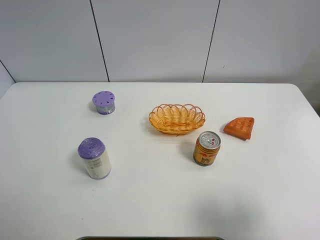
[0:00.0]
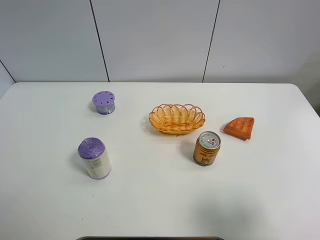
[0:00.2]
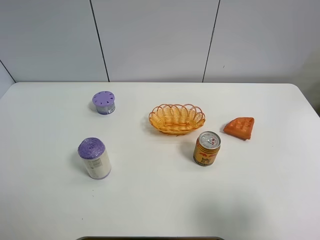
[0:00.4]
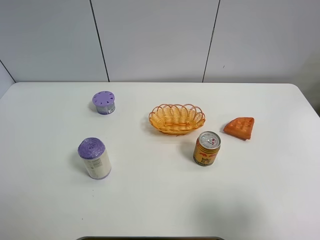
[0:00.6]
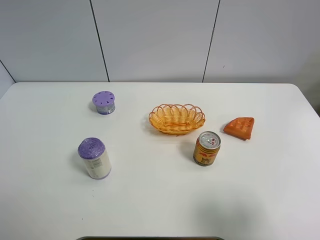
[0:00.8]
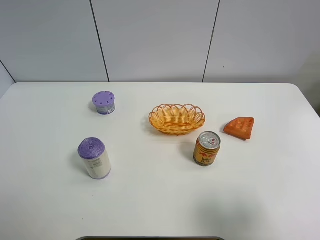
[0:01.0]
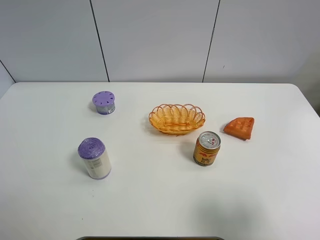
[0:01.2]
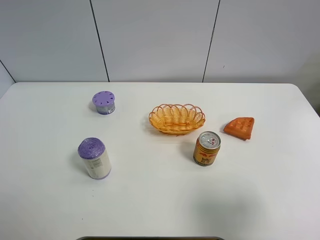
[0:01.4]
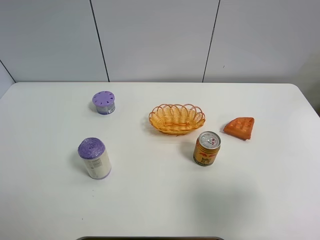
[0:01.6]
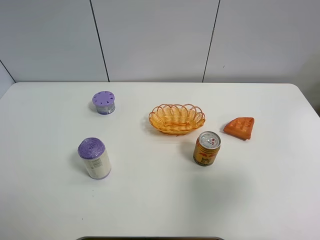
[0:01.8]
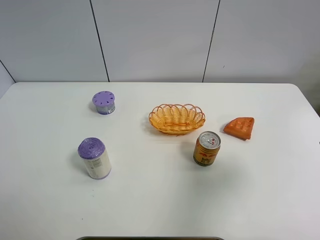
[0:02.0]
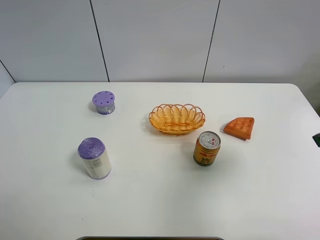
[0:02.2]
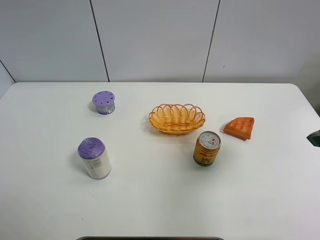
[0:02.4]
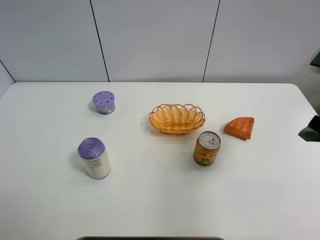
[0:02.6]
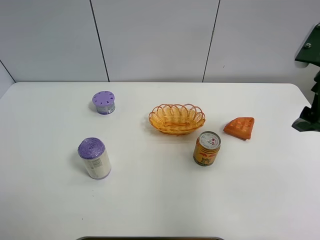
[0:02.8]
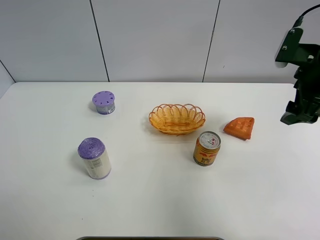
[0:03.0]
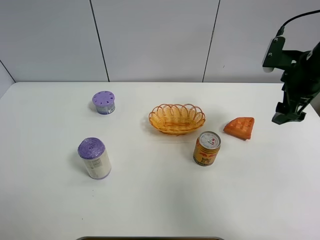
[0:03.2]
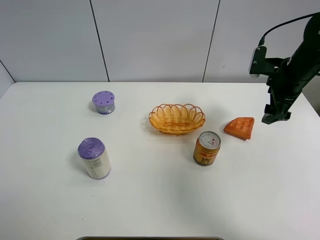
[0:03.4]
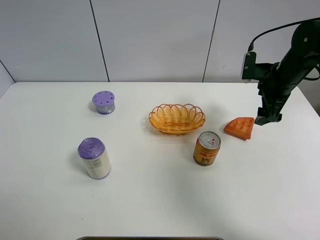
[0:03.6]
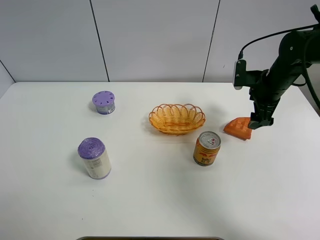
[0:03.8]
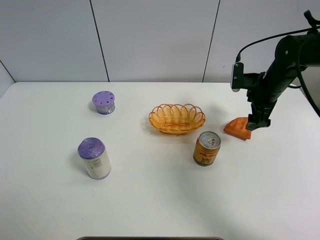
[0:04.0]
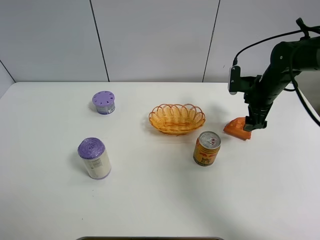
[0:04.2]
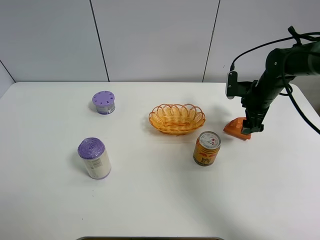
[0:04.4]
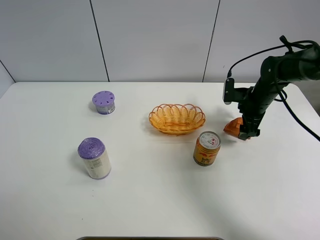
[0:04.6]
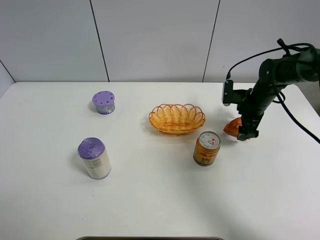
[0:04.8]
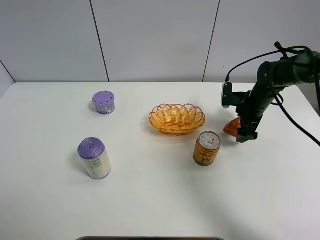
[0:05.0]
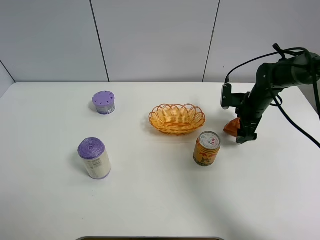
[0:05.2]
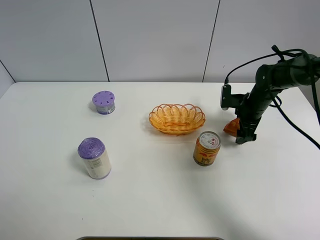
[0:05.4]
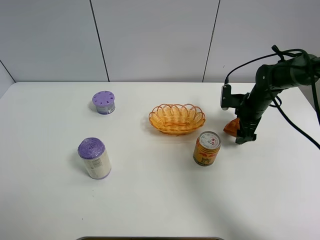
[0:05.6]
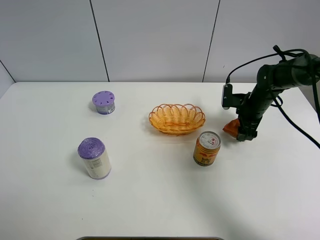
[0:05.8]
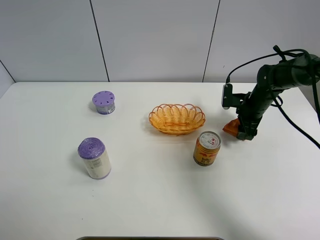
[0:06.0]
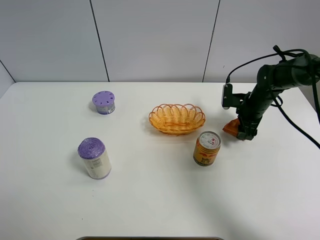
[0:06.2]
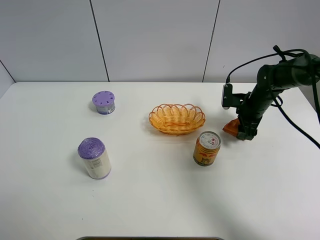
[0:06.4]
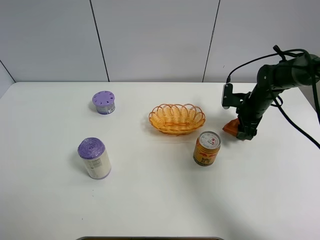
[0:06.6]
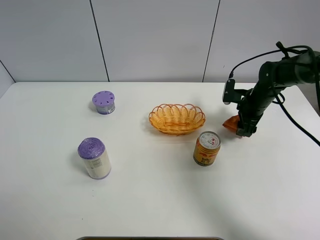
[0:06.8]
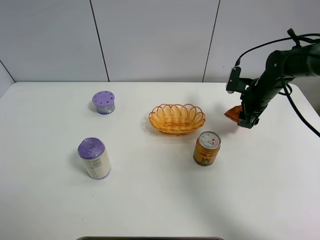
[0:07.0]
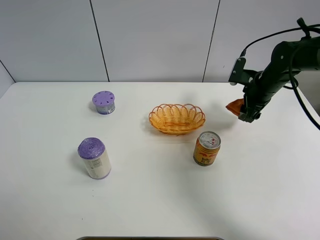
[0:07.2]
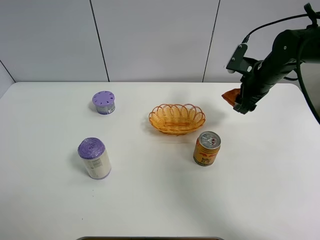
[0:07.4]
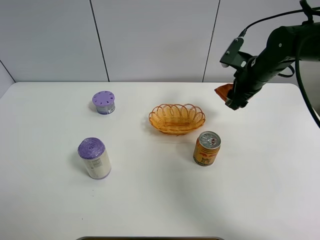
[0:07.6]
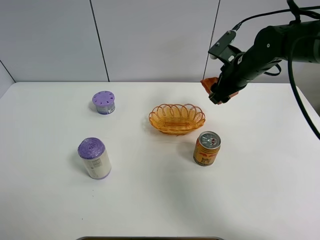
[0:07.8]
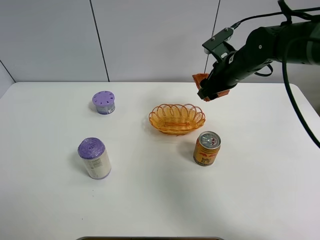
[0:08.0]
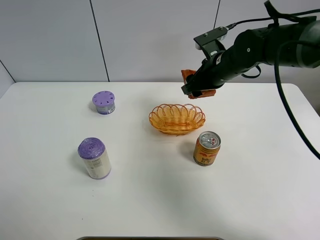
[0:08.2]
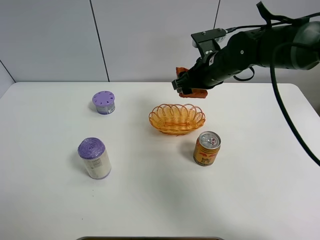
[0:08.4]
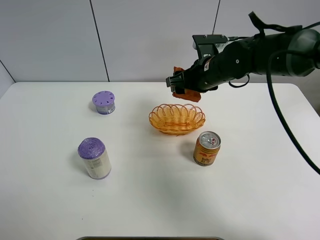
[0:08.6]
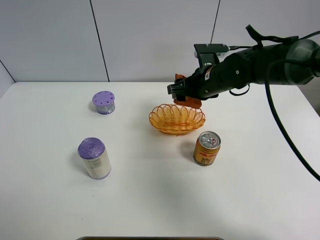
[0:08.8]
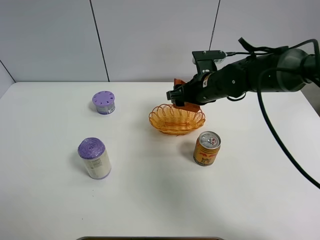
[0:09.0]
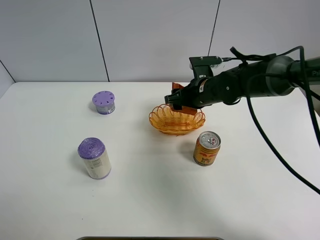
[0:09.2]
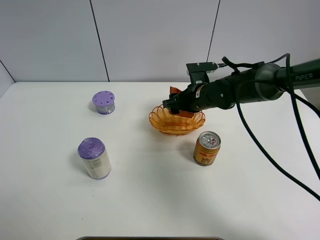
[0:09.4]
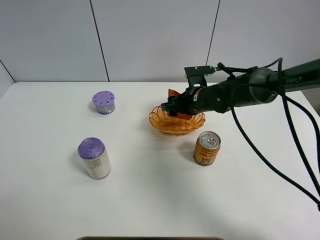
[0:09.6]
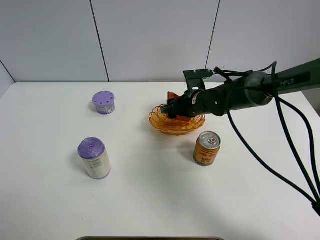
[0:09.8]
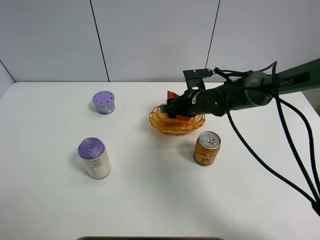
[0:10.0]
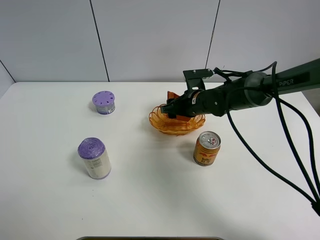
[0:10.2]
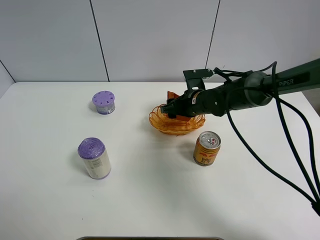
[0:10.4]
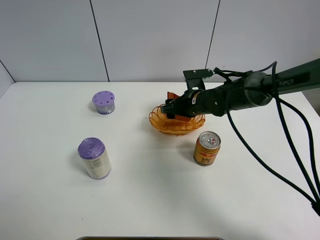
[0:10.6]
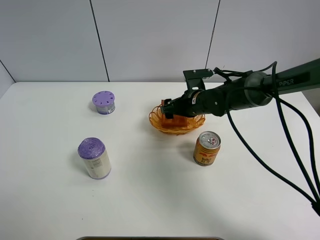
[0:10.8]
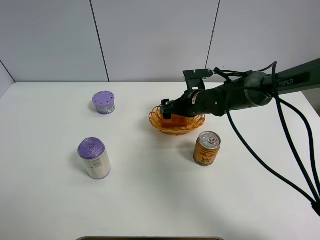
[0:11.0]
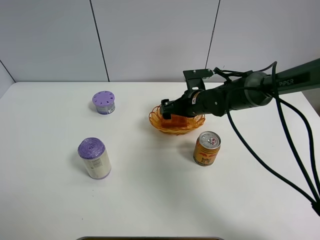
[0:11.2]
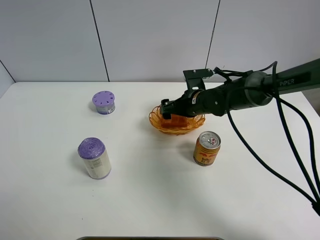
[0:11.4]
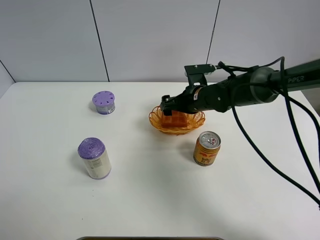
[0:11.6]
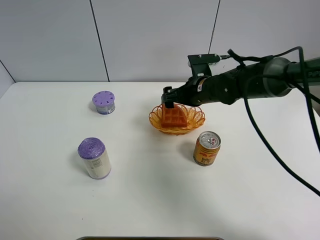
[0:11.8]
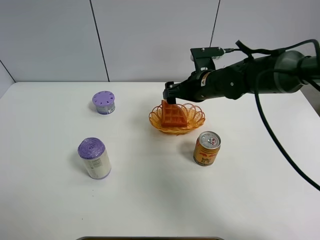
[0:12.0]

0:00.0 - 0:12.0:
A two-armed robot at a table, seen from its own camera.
Task of the whole recording: Put the bakery in the basket.
Step, 0:00.0 - 0:05.8: Grasp the bread with right gripper.
0:00.0 - 0:01.6: The grippers stay close to where they were, moving slightly.
0:01.6 - 0:03.0: The right gripper heads forward, covering some 25 cm.
0:03.0 - 0:04.4: The right gripper heads downward and forward, covering roughly 15 cm.
0:04.4 - 0:06.0: The right gripper closes up.
0:06.0 - 0:07.6: The right gripper is displaced upward by some 10 cm.
0:07.6 - 0:09.0: The right gripper goes about 10 cm to the left.
0:09.0 - 0:10.4: The right gripper goes about 5 cm downward.
0:10.4 - 0:12.0: The right gripper travels upward by about 5 cm, and opens.

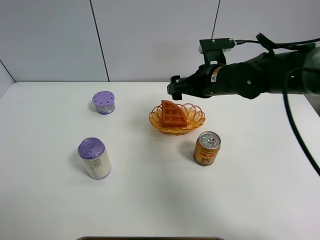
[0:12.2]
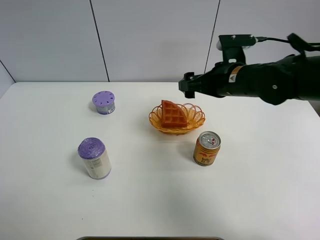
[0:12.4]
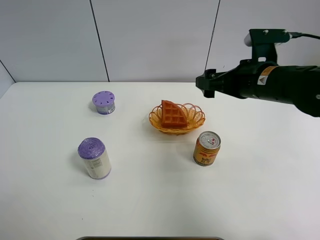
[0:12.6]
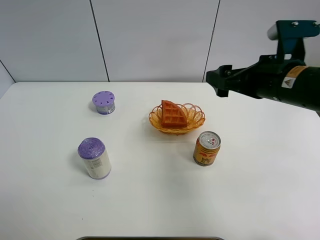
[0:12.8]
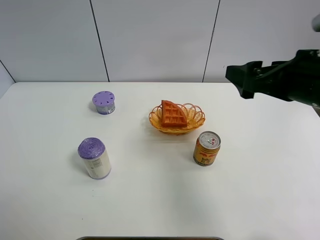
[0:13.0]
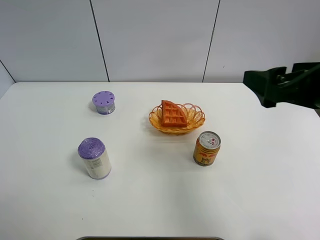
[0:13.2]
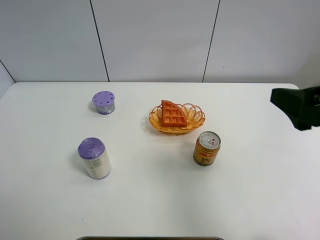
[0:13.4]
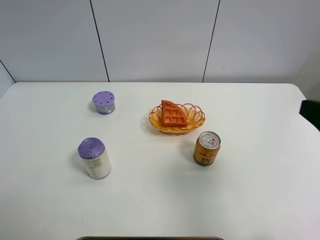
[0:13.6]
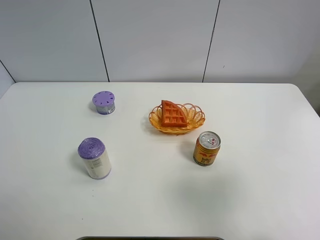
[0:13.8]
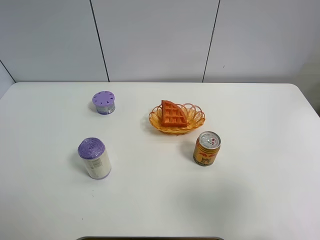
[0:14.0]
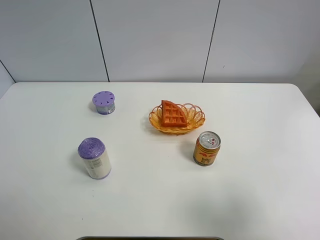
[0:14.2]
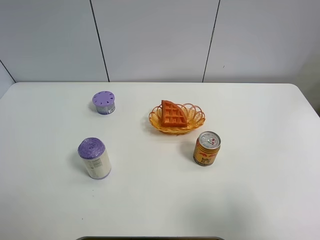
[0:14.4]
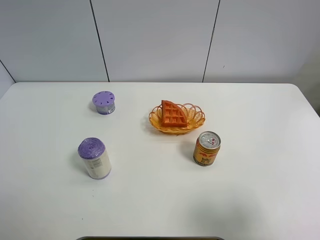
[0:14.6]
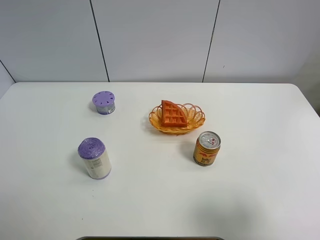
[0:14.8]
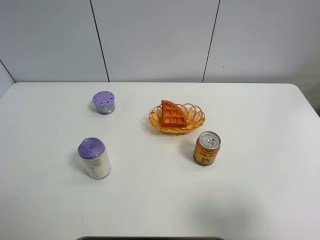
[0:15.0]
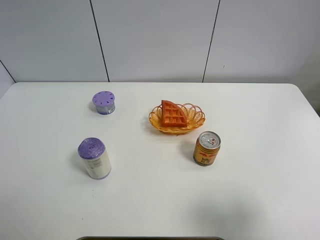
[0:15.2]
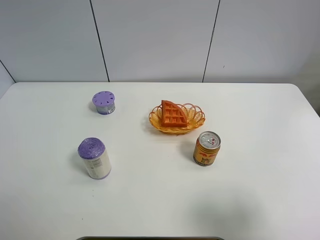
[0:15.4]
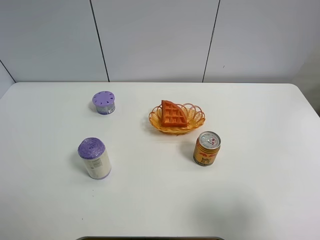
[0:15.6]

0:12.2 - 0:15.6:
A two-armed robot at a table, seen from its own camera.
Task of the whole recording: Put the bakery in the basket.
0:12.2 - 0:13.8: The right gripper goes about 35 cm backward and to the right.
0:13.8 - 0:15.6: The right gripper moves approximately 5 cm.

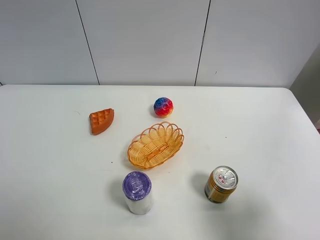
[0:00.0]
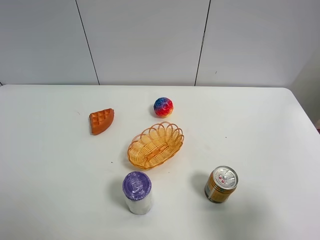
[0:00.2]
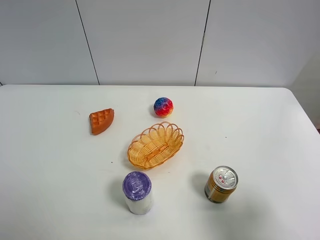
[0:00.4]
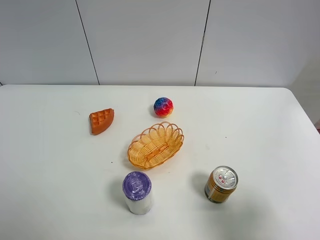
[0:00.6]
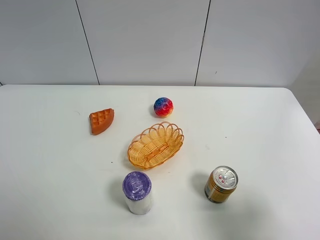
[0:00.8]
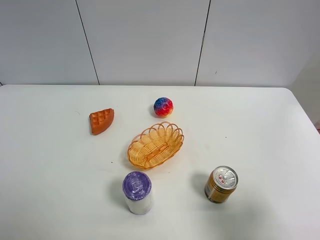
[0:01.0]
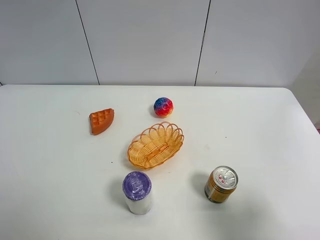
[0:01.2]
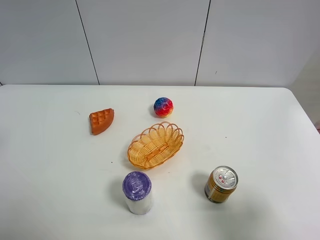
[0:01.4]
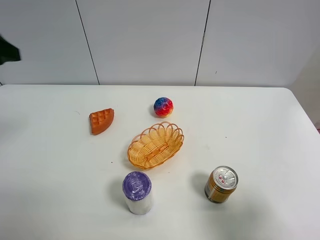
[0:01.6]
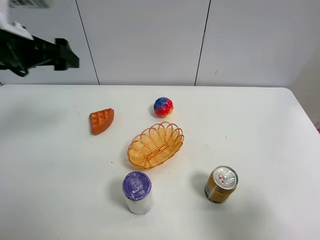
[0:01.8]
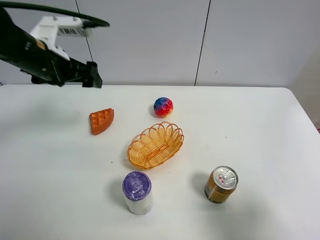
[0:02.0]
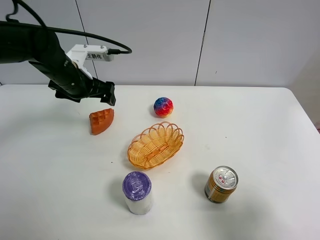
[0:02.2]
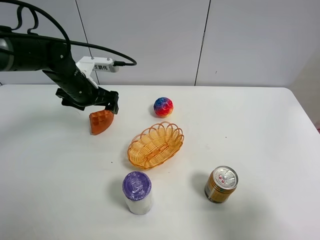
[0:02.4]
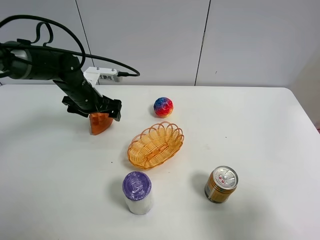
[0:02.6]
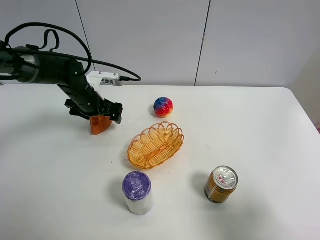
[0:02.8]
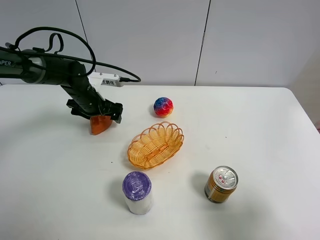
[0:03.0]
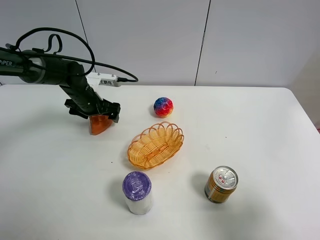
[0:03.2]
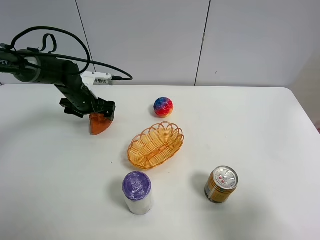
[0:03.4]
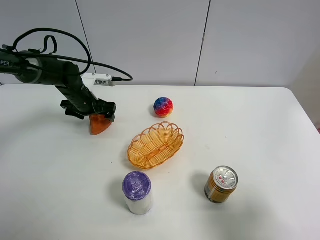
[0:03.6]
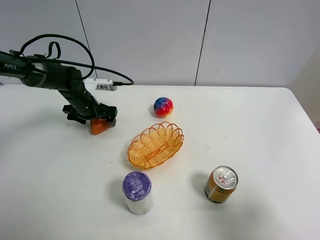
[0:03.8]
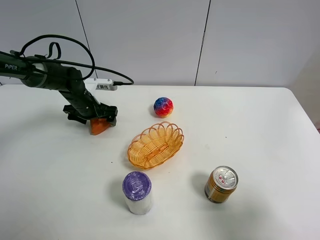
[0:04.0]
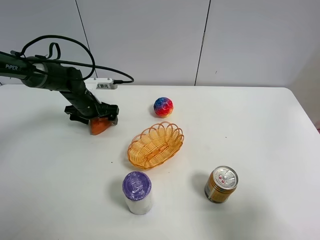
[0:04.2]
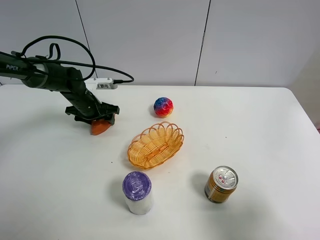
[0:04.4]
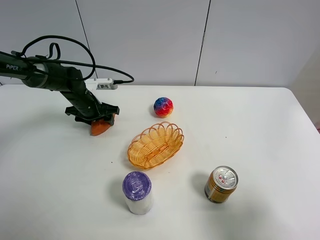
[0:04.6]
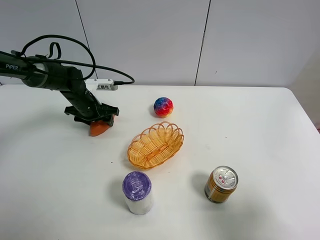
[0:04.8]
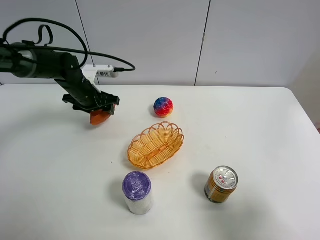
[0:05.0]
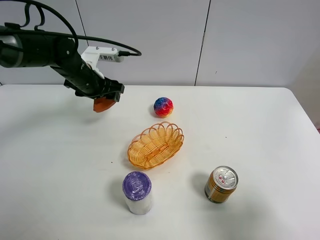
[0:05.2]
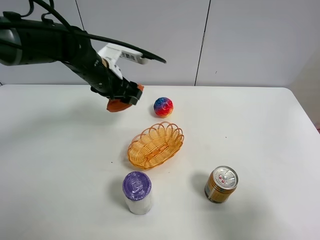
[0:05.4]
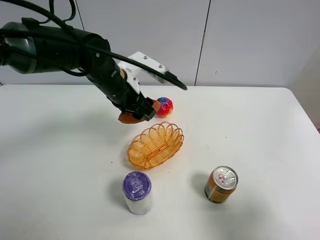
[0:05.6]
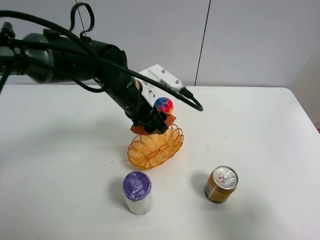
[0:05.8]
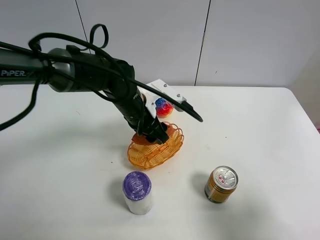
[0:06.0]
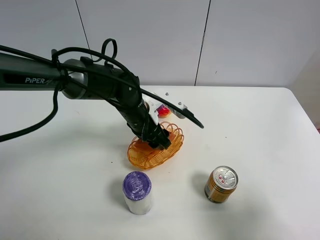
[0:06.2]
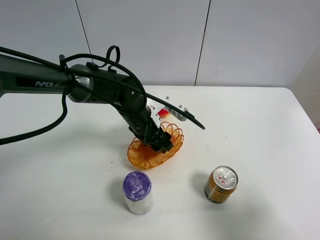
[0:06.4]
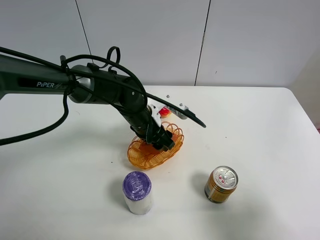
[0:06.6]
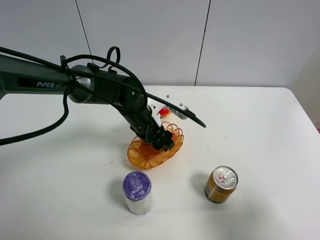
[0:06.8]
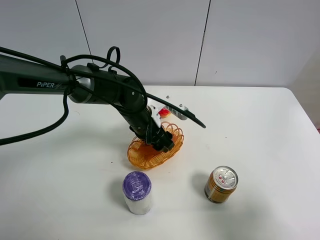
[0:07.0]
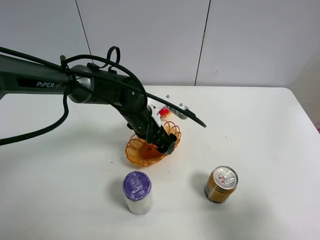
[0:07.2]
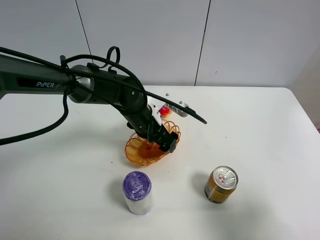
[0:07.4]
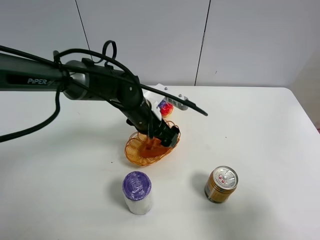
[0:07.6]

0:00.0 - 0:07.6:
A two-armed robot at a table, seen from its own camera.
Task of the whole recording: Put the bakery in the basket.
0:01.6 - 0:03.0: The left gripper is displaced downward, forward and to the right by about 30 cm.
0:03.0 - 0:04.6: The left gripper closes its fingers.
0:04.6 - 0:06.0: The left gripper is displaced to the right, backward and upward by roughly 20 cm.
0:06.0 - 0:07.6: The left gripper opens its fingers.
